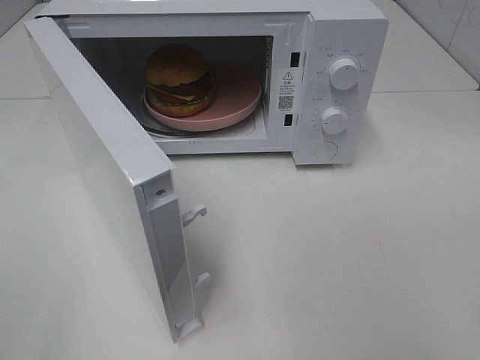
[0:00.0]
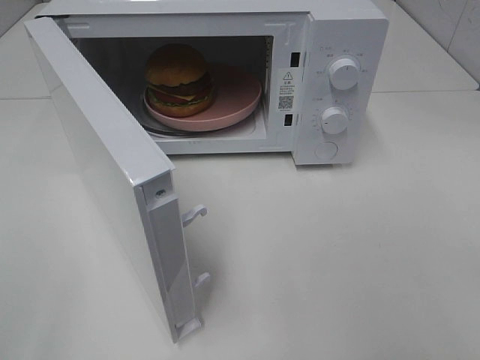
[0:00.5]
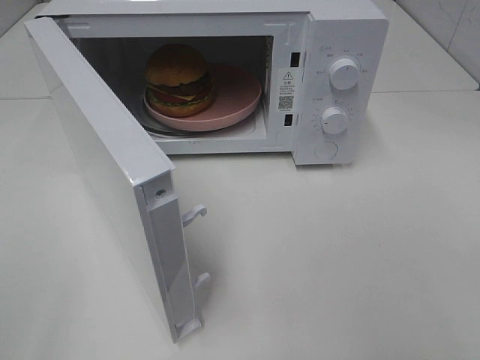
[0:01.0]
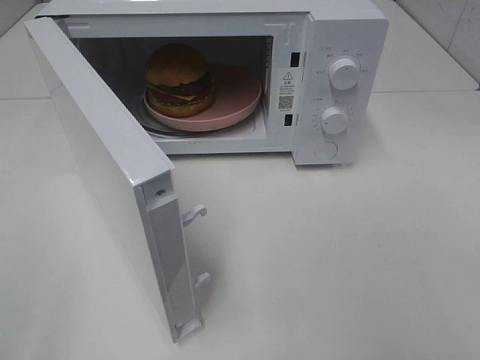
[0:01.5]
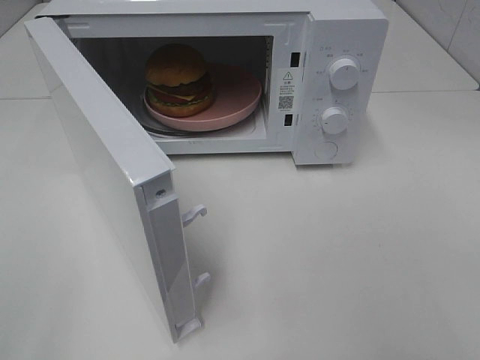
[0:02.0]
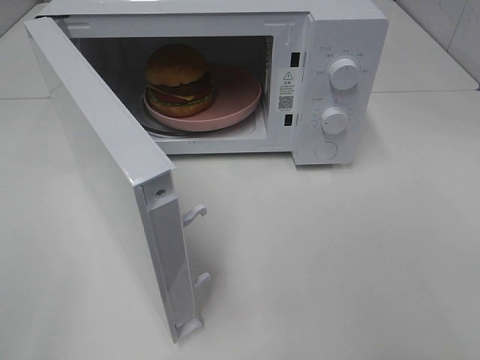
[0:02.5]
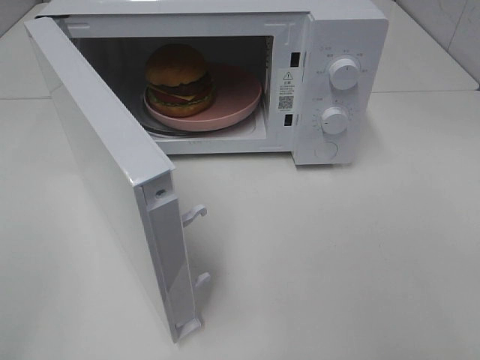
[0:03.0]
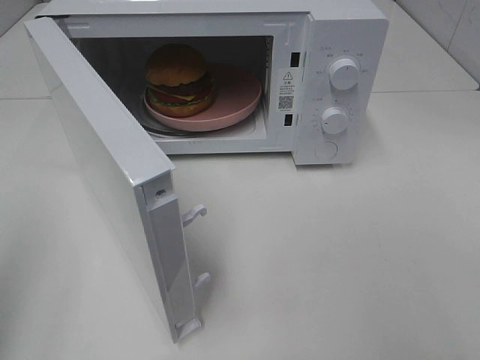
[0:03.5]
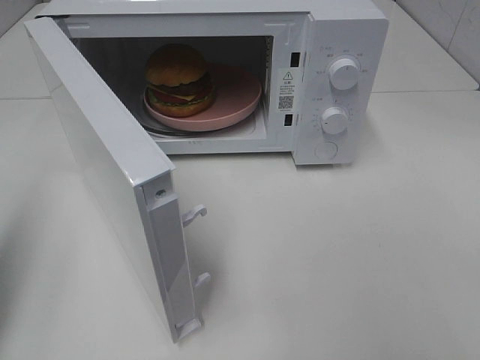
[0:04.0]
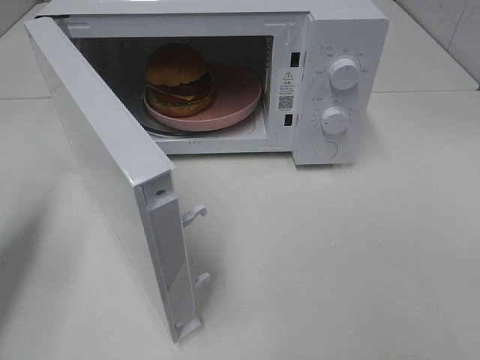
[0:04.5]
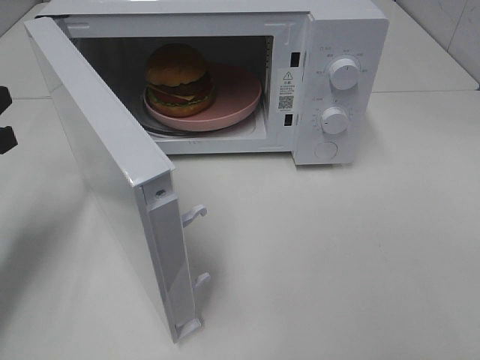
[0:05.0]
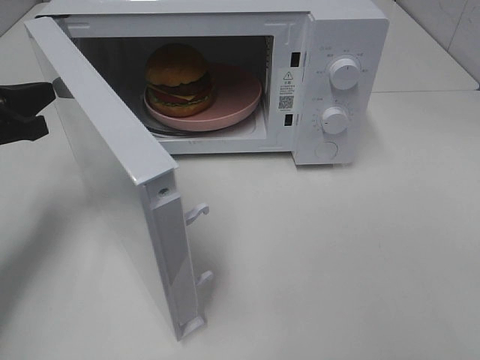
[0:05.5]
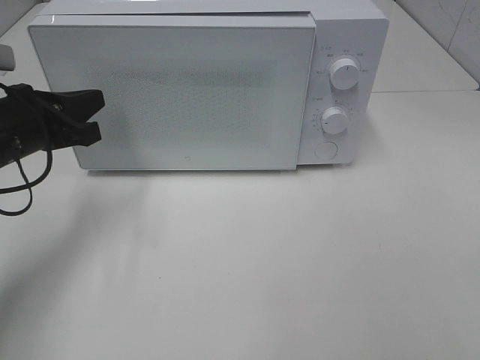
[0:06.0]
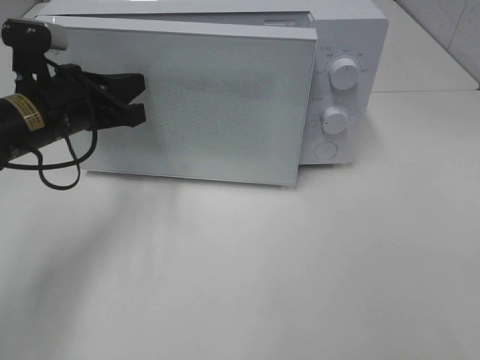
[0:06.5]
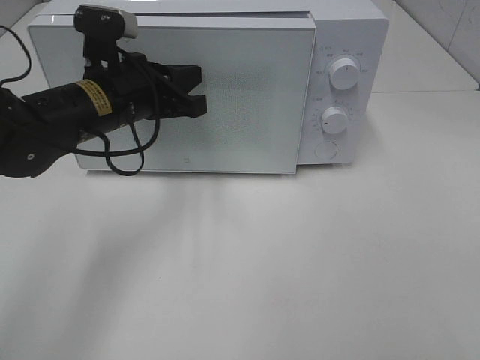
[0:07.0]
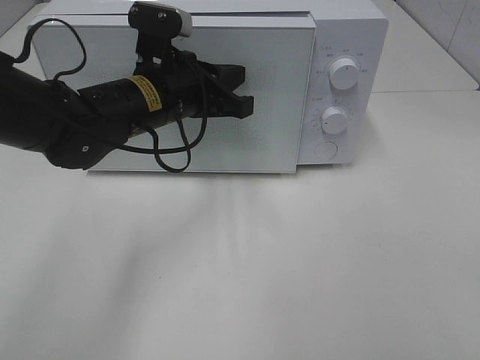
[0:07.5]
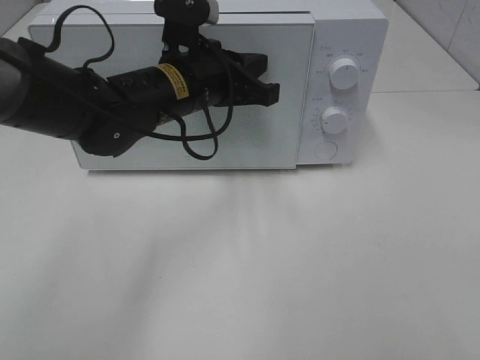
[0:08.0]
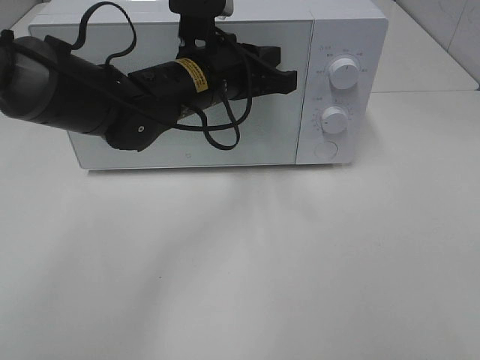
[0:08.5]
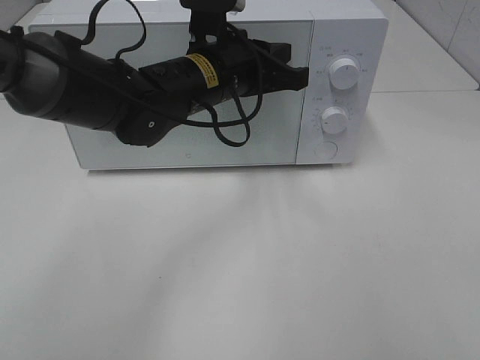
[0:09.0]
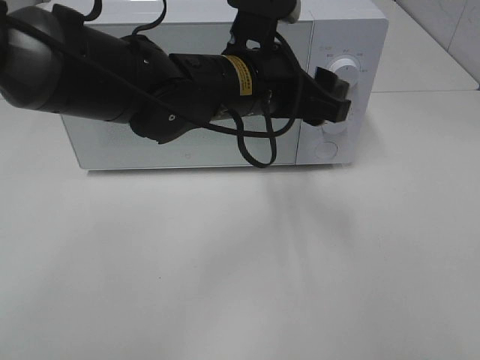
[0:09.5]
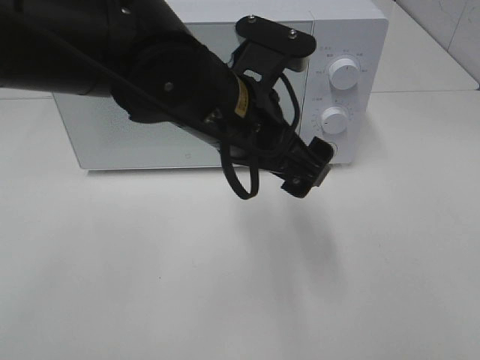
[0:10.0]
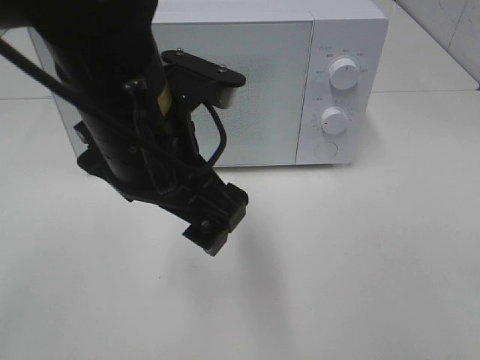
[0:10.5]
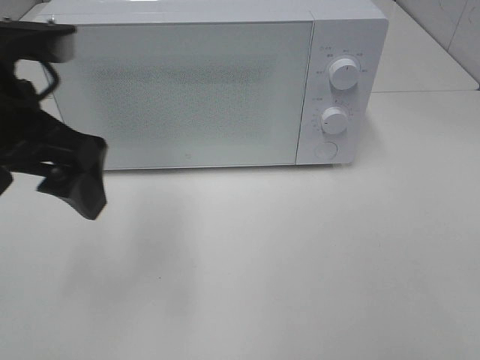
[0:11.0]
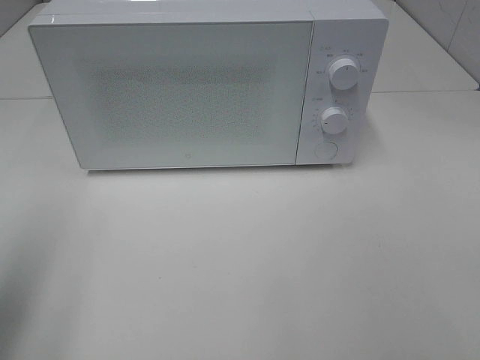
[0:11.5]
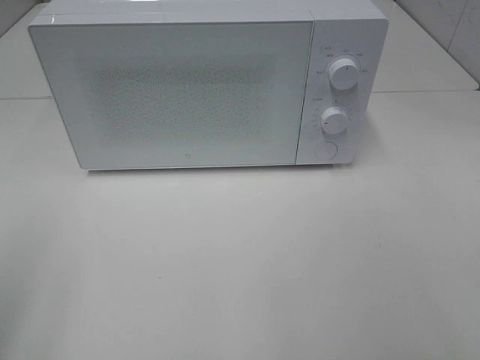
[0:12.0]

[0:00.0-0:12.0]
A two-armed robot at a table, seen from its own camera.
Task of the whole recording: Heat the burger.
Step, 0:00.0 to 0:08.5: Left hand: close the microwave door.
0:02.0 to 0:04.0: The left gripper is displaced forward by roughly 15 cm, and closes.
0:04.0 to 0:06.0: The left gripper travels forward, downward and to the right by some 20 cm.
0:06.0 to 0:08.0: The left gripper travels to the right by about 20 cm.
0:08.0 to 0:10.0: The left gripper travels backward and to the right by roughly 10 cm, and opens.
0:10.0 to 0:12.0: The left gripper moves to the left and backward, about 35 cm.

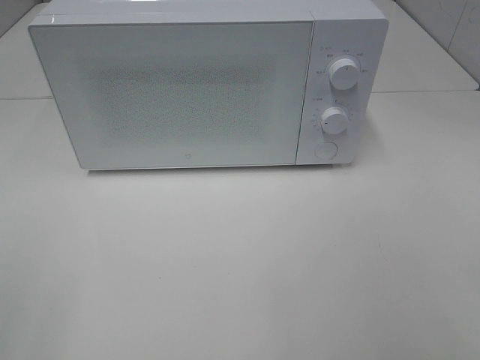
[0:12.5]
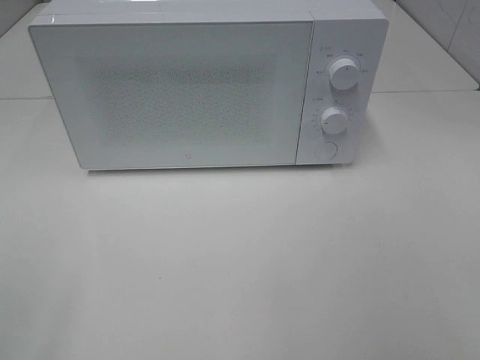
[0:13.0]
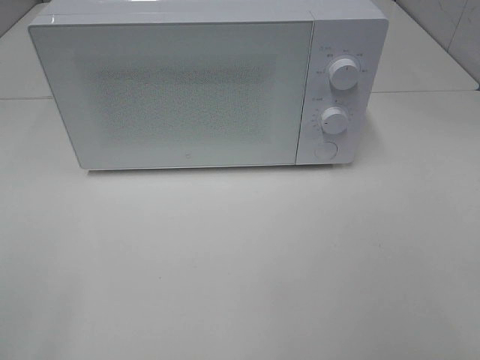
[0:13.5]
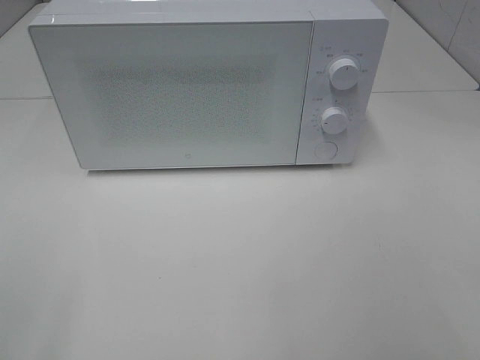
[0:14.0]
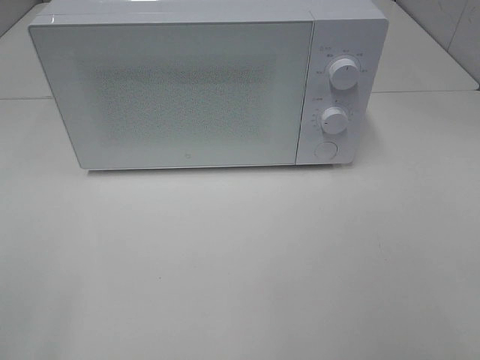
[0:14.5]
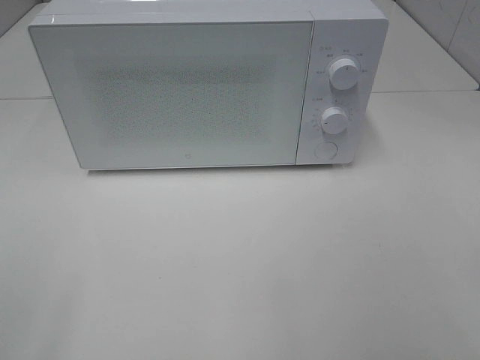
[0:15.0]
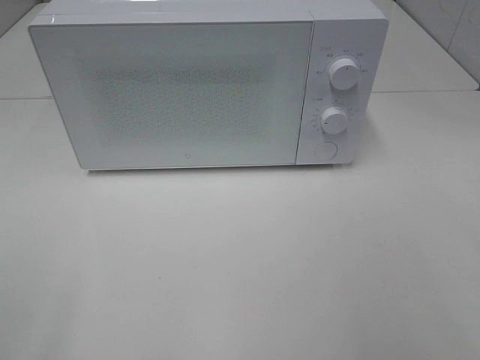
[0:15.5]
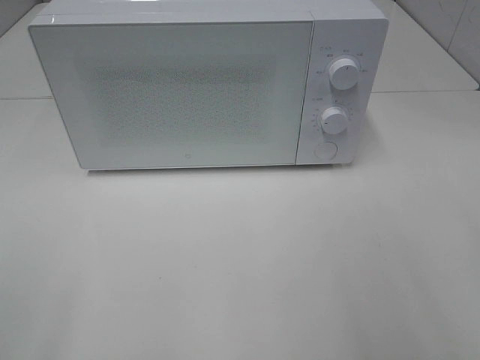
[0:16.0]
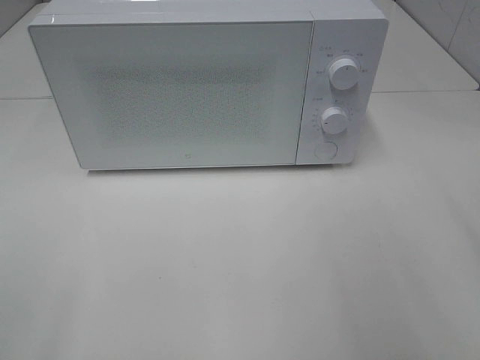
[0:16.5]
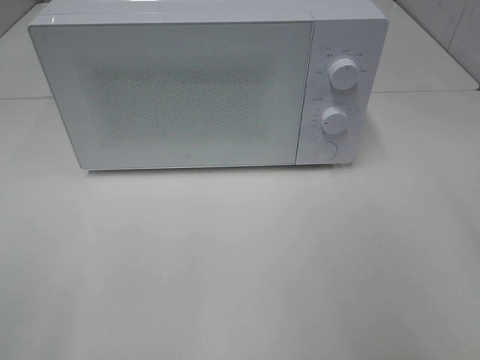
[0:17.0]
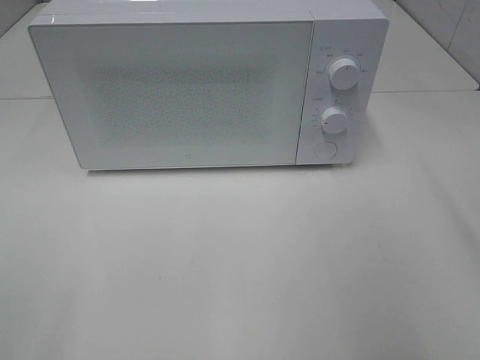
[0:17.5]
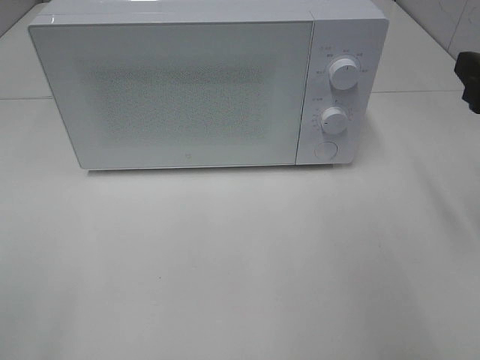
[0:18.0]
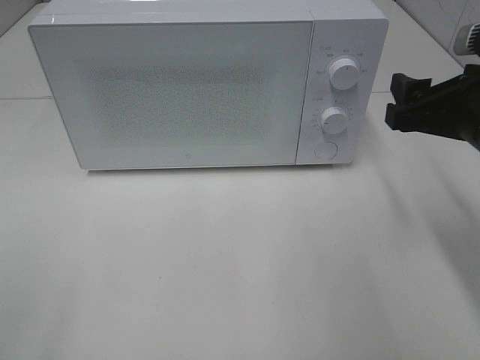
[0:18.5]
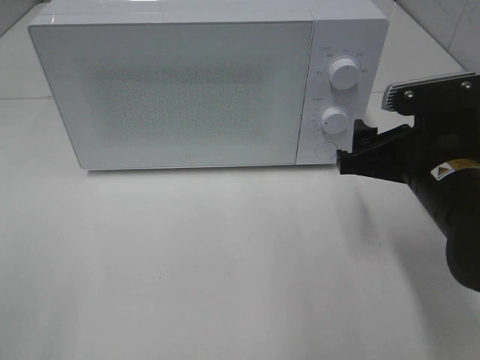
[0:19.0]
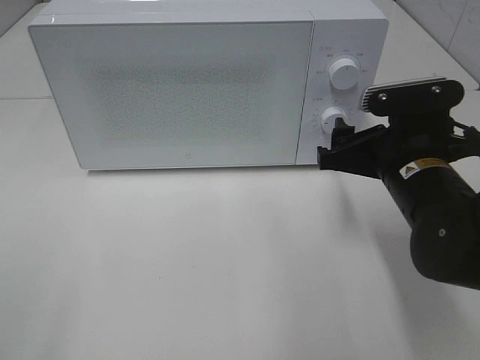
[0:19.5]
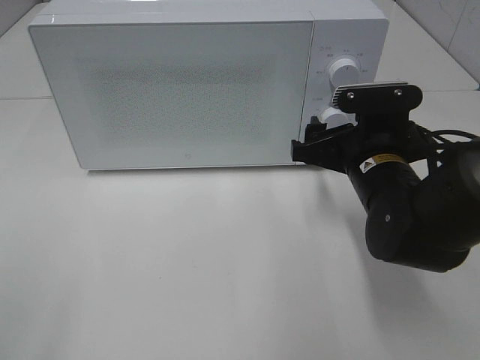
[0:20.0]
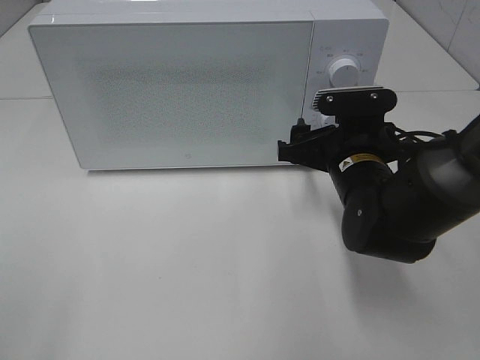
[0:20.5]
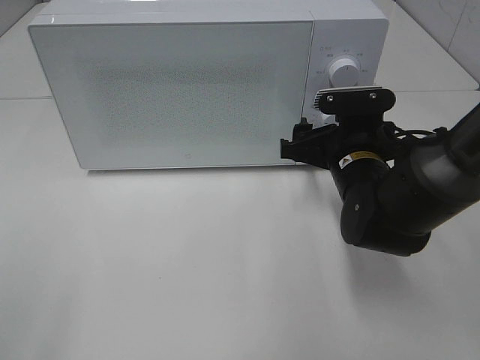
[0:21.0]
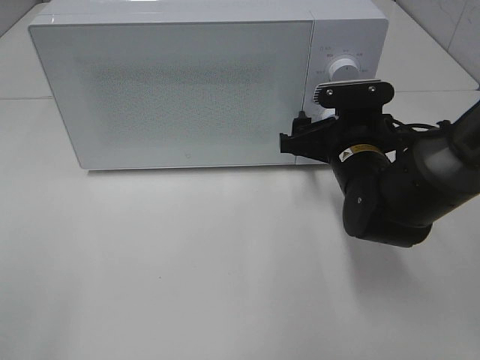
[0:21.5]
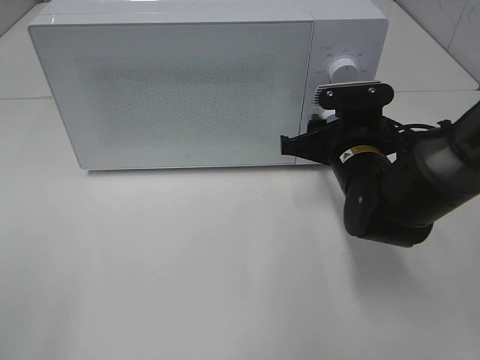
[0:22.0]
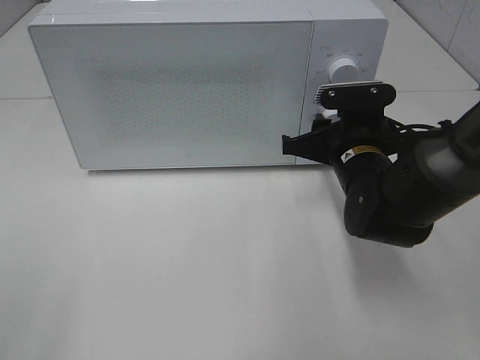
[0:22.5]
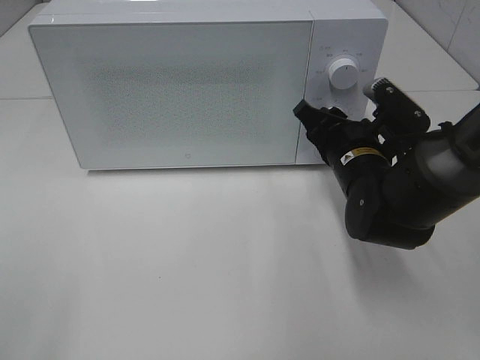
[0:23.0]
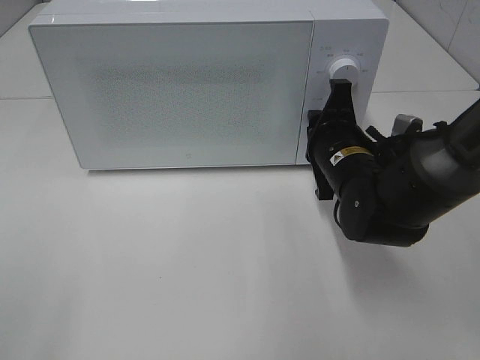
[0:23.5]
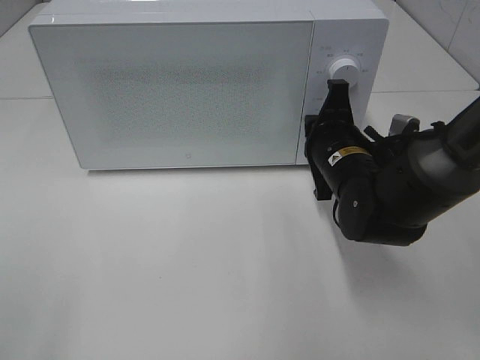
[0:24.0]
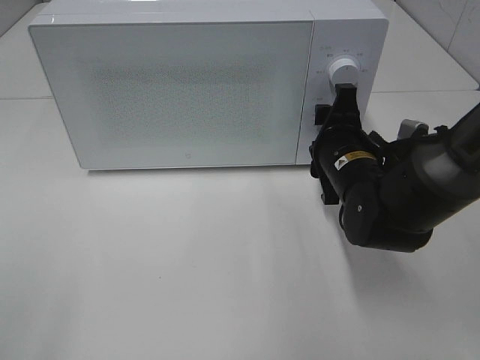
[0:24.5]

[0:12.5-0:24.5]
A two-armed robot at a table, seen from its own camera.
Task of the whole recording: Heat the burger.
Step, 0:12.5 to 0:23.5: Right hand: twist timer button.
0:16.5 to 0:18.5: The right gripper is displaced forward, downward and to the left by approximately 15 cm.
0:18.5 to 0:20.5: The right gripper shifts about 15 cm downward, to the left and forward.
0:20.5 to 0:22.5: The right gripper closes.
0:22.5 to 0:24.5: The right gripper closes, then reopens.

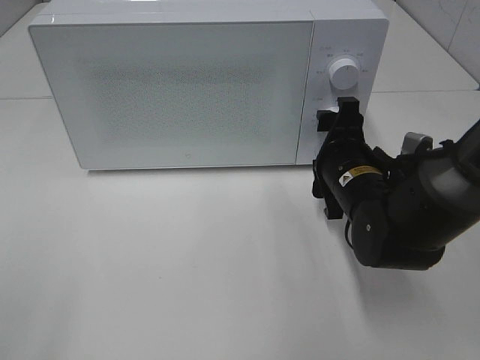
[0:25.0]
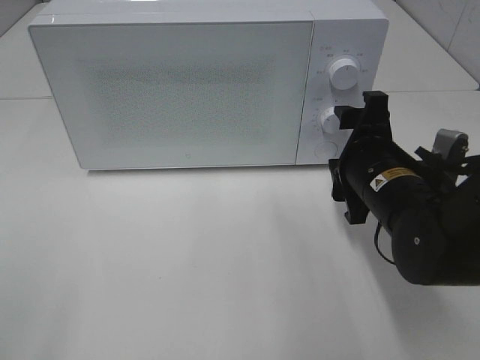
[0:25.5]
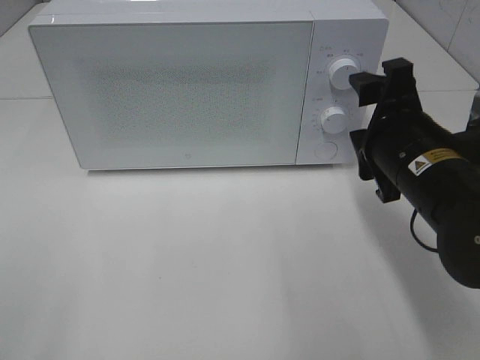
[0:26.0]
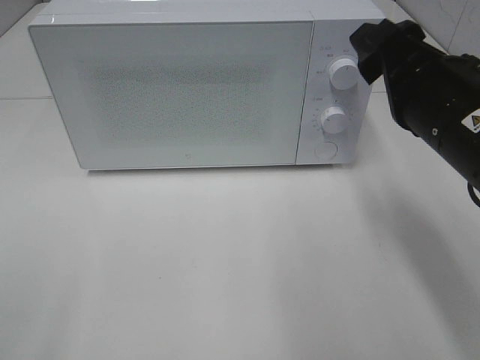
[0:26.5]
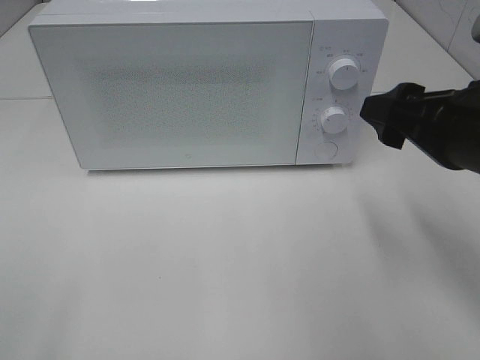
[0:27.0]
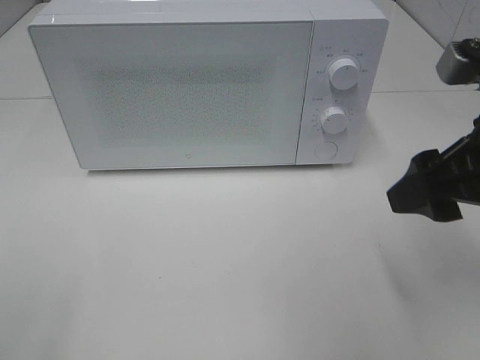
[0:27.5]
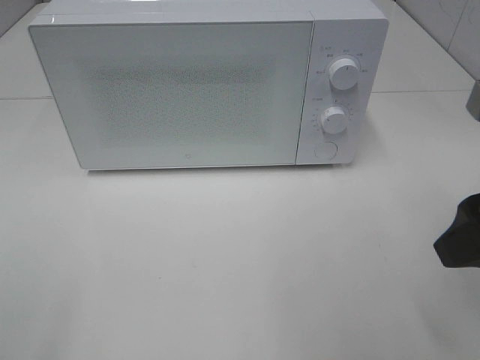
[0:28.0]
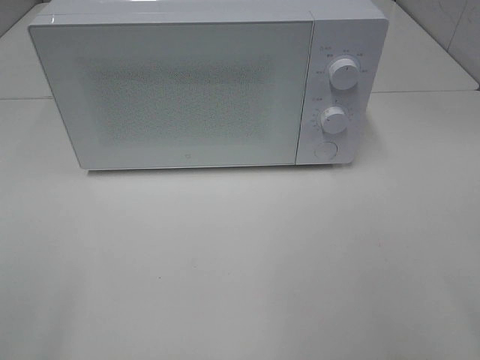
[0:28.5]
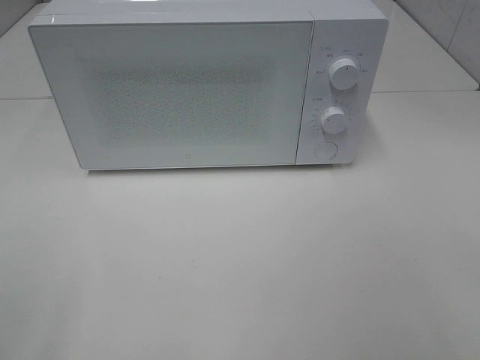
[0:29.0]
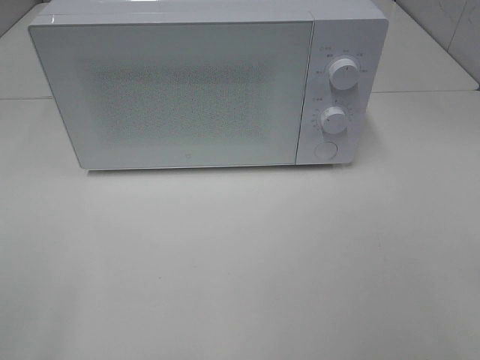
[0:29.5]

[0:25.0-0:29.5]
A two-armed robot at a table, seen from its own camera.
Task of the whole recording: Heat the burger.
0:25.0 to 0:27.0: The right gripper heads upward, backward and to the right, covering some 15 cm.
0:27.0 to 0:29.5: The right gripper travels backward by about 20 cm.
